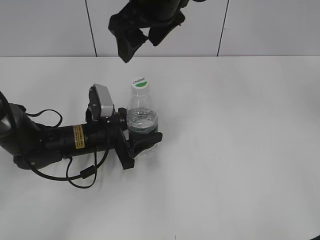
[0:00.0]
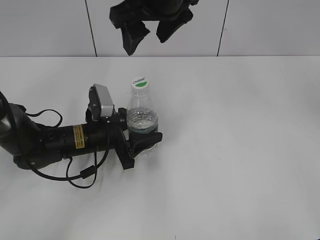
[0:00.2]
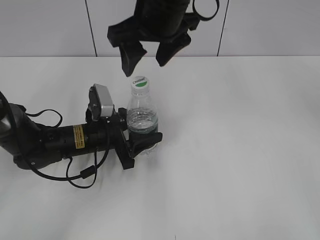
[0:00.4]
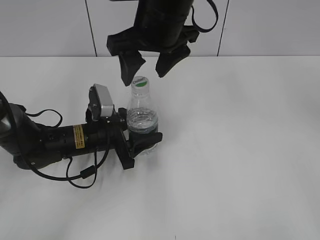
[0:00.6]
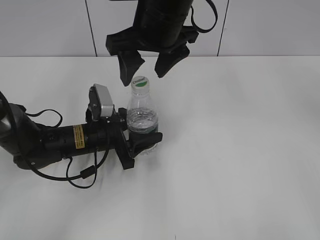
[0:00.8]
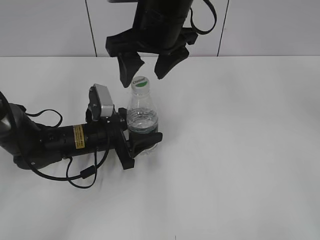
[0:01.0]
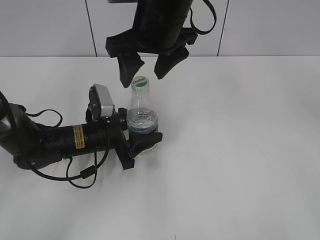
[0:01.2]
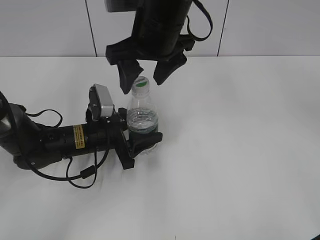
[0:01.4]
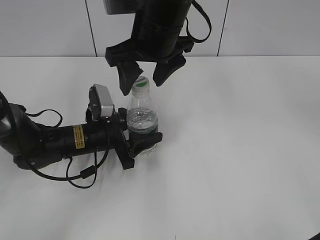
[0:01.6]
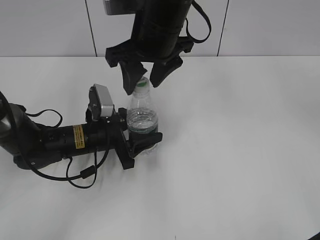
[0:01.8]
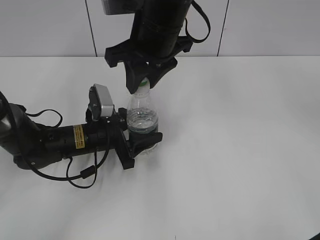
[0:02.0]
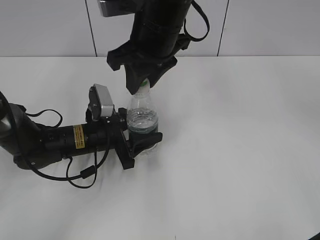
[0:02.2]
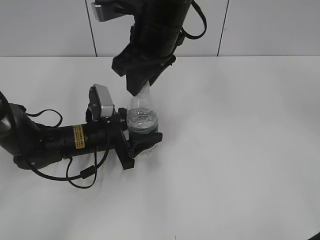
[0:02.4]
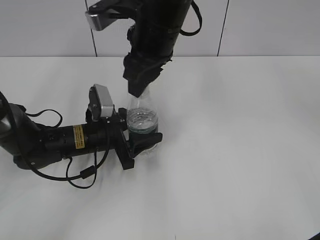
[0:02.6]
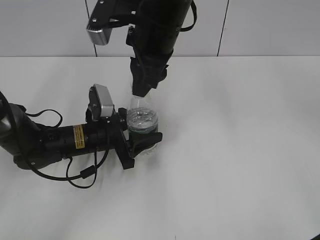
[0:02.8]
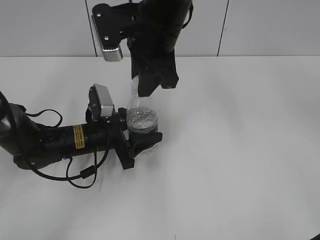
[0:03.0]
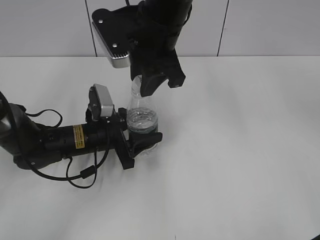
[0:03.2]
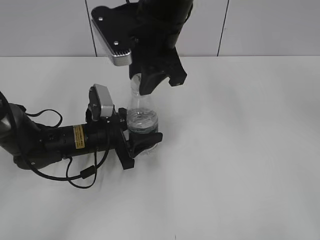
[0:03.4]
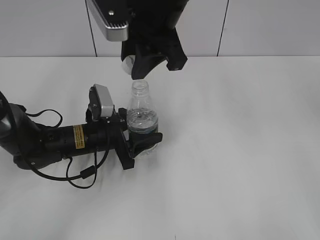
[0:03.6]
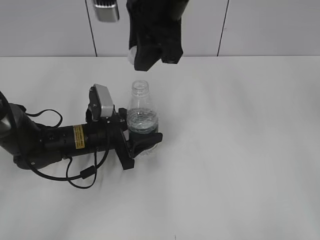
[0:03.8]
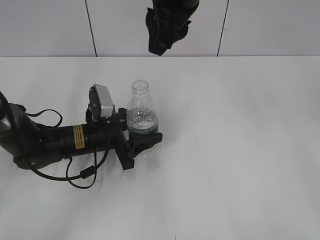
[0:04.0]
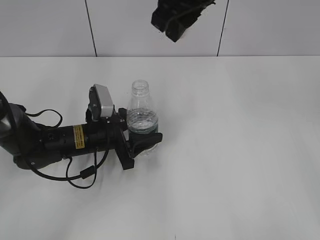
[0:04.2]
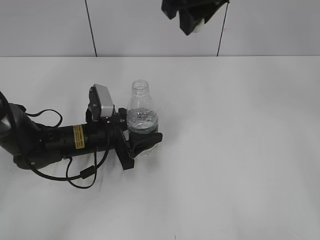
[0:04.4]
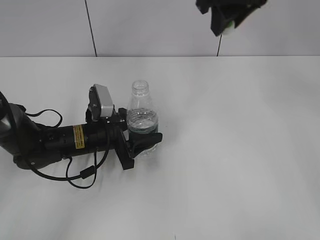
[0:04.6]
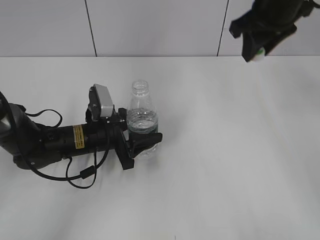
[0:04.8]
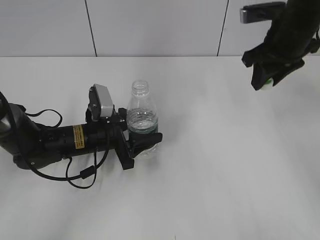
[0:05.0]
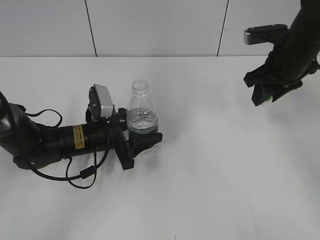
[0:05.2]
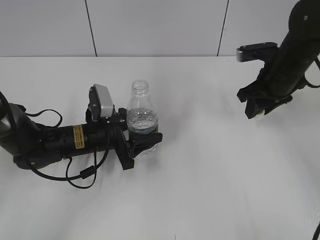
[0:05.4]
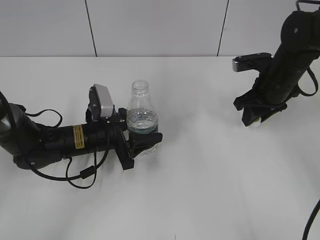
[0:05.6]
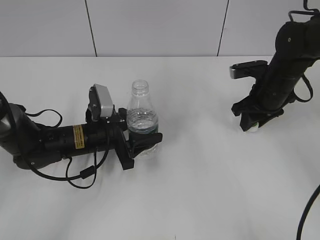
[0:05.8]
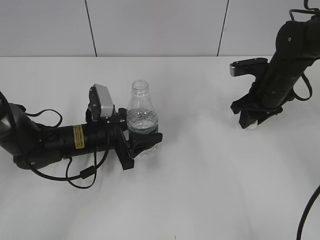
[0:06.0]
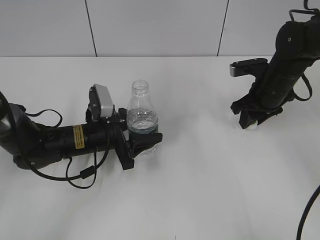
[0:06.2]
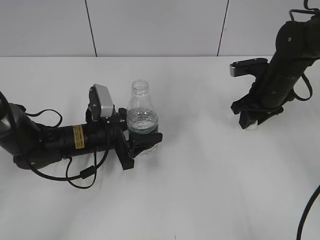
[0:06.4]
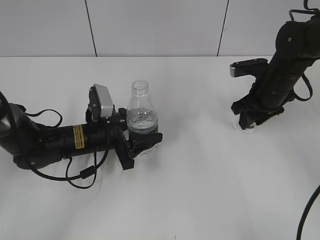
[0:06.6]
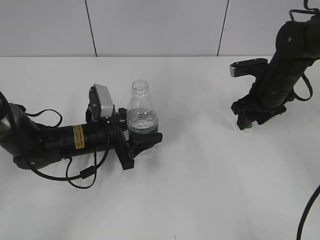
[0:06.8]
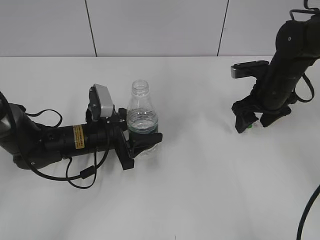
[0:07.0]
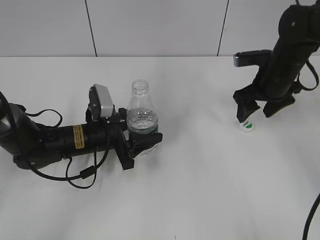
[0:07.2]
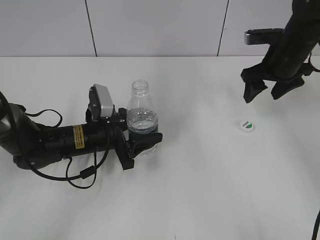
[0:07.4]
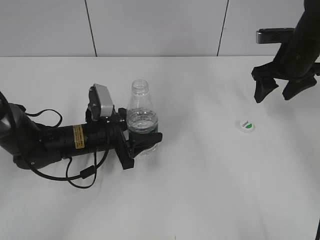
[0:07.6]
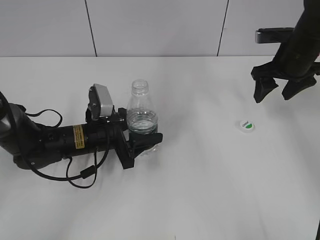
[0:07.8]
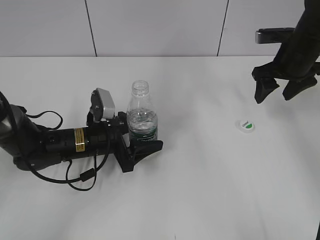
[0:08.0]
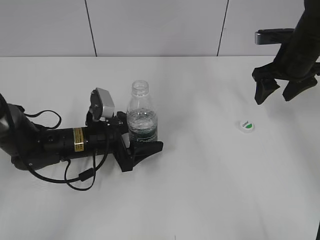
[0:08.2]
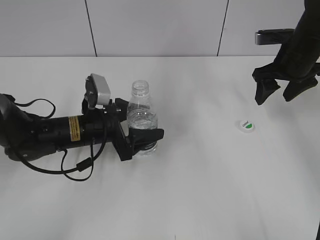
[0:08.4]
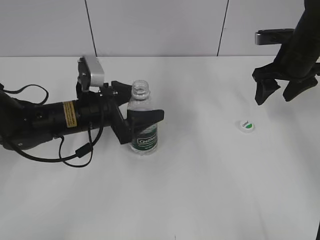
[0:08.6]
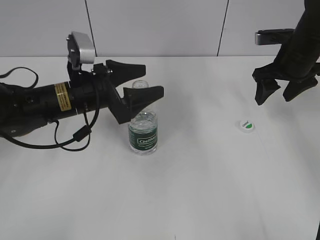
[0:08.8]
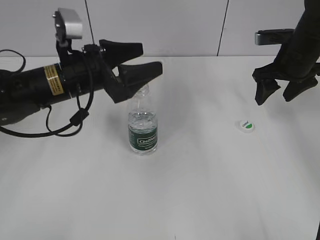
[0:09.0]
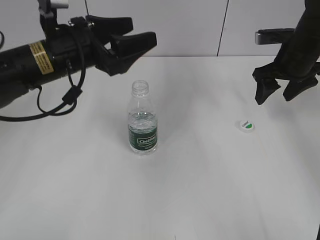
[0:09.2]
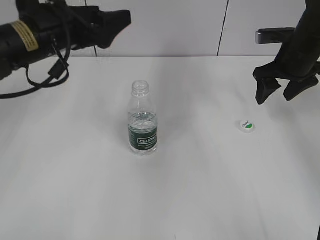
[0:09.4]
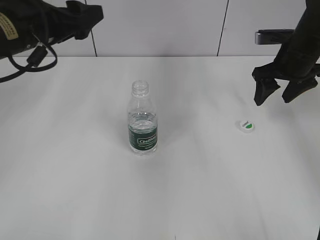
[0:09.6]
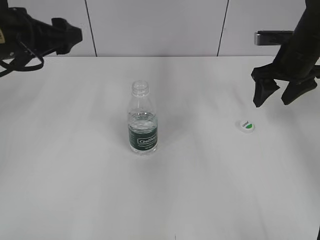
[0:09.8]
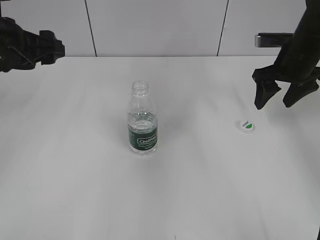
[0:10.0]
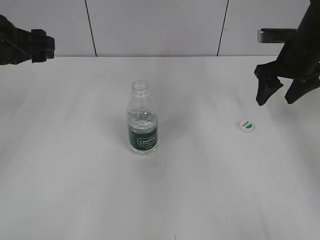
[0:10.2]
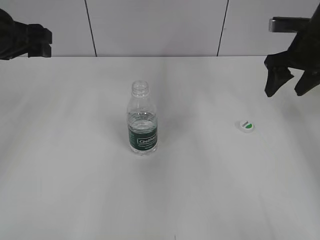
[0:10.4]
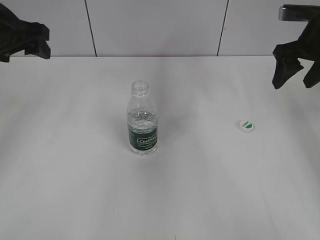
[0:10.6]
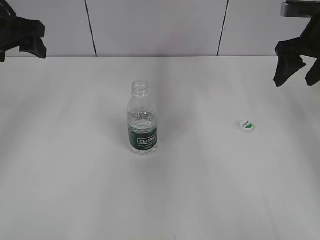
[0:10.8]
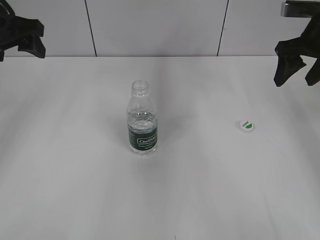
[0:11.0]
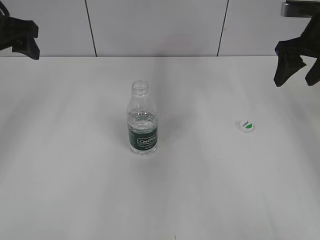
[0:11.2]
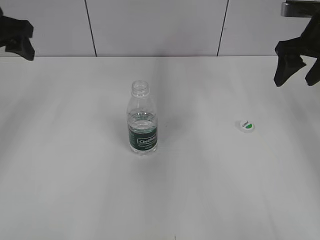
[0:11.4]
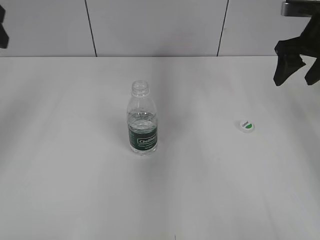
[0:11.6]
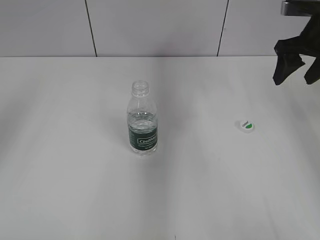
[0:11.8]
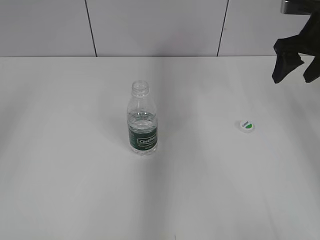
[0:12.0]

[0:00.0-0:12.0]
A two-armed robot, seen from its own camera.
Step, 0:00.0 to 0:03.6: Unscrew the bottle cap with the right gripper while holding the bottle with the left gripper.
Step, 0:03.8 to 0:07.0: Place the bottle cap on the table with the right gripper.
Step, 0:07.2 to 0:08.6: Place the bottle on the table with the left gripper.
0:01.6 to 0:03.0: The right gripper closes up.
0:03.0 to 0:04.4: The right gripper is displaced upward and to the right by about 10 cm.
0:04.4 to 0:06.0: The right gripper shifts approximately 25 cm downward and to the right.
0:06.0 to 0:07.6: The right gripper heads upward, covering about 5 cm, and opens.
0:07.6 to 0:09.0: The left gripper moves upward, roughly 15 cm, and opens up.
0:09.0 to 0:10.4: The left gripper shifts approximately 15 cm to the left and upward.
0:10.4 to 0:12.0: The left gripper is displaced backward and upward by approximately 20 cm.

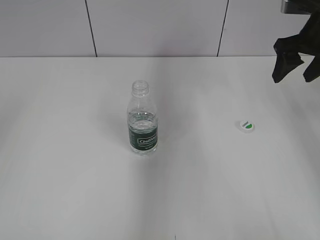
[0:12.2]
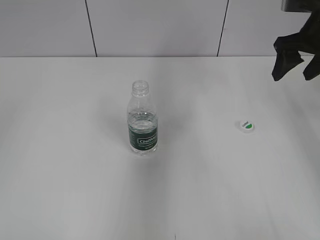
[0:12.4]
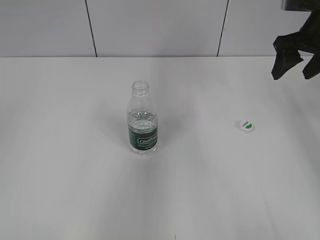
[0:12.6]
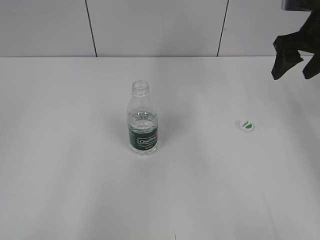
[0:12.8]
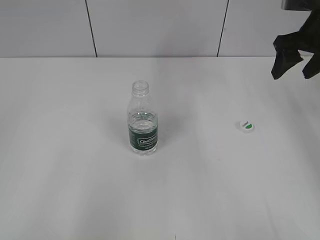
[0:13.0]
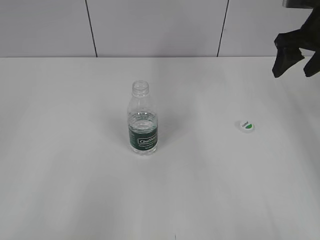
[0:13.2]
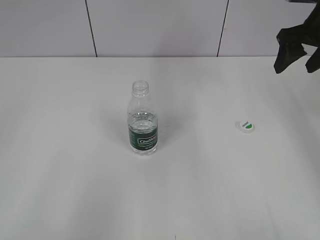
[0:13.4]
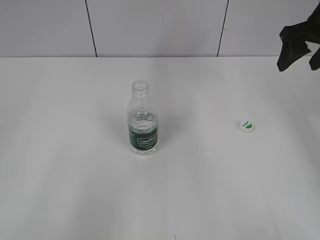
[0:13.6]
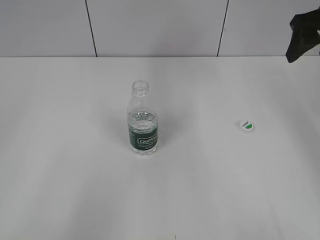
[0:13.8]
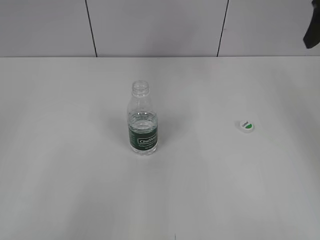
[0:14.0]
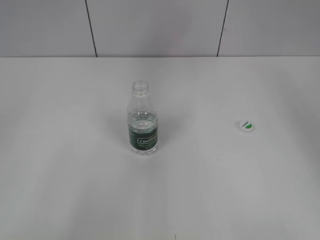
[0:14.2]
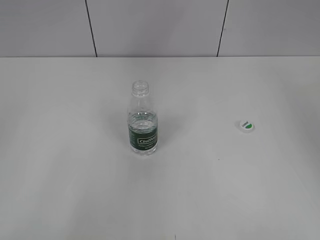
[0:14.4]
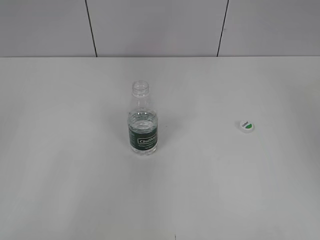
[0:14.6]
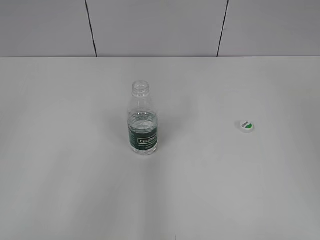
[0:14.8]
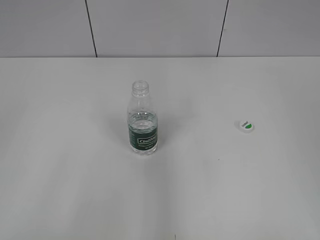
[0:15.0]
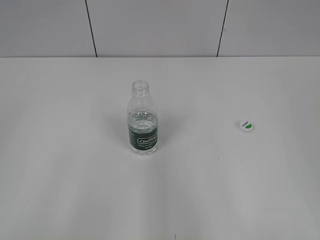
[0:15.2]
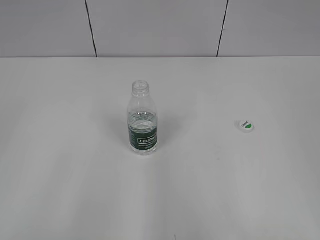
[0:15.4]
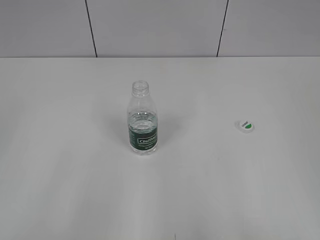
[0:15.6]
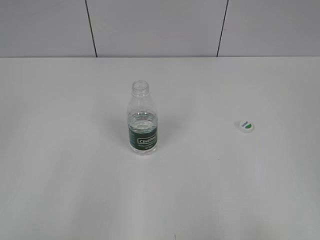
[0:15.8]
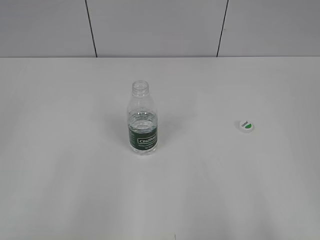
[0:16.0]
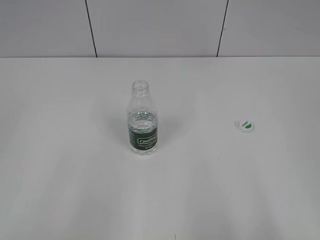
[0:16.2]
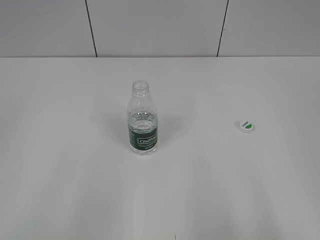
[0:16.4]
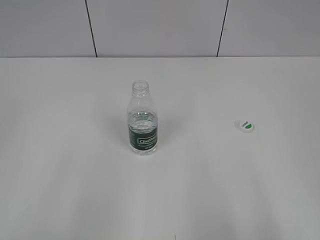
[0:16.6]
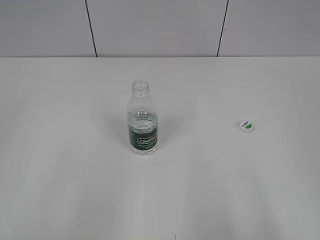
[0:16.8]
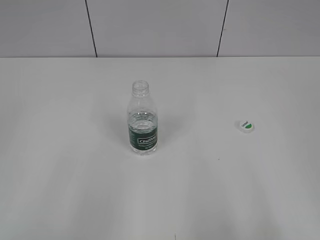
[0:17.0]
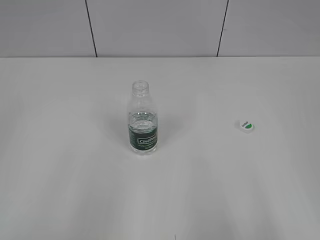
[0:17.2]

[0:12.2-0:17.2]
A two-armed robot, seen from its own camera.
0:12.2 to 0:13.8: The left gripper moves downward and backward, approximately 15 cm.
0:13.8 to 0:15.6: The right gripper moves backward, some 40 cm.

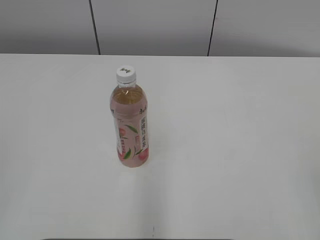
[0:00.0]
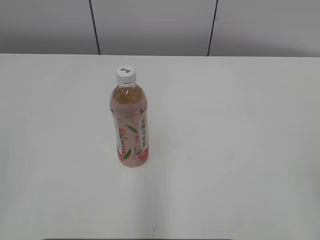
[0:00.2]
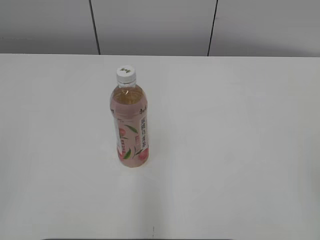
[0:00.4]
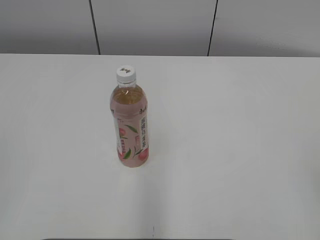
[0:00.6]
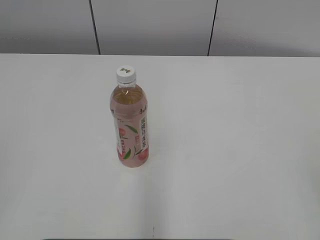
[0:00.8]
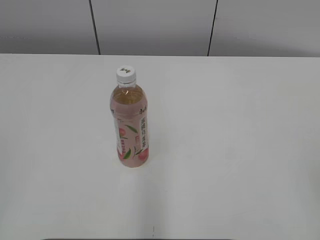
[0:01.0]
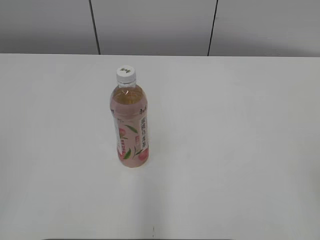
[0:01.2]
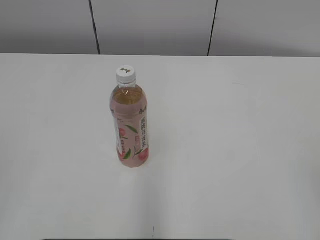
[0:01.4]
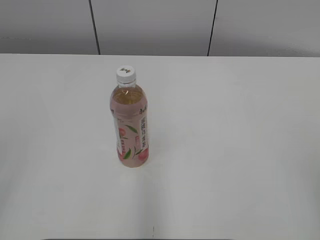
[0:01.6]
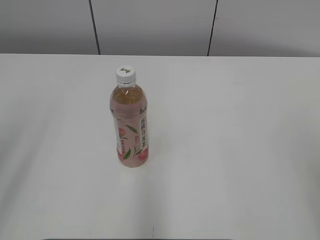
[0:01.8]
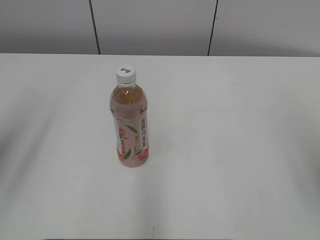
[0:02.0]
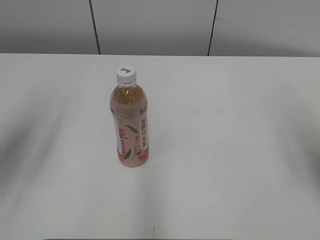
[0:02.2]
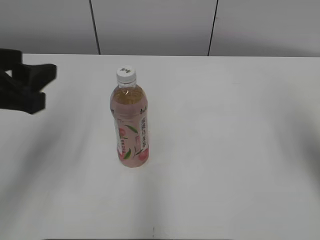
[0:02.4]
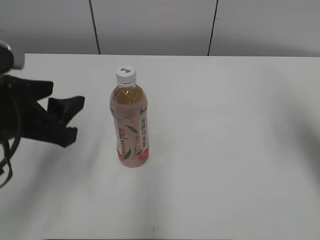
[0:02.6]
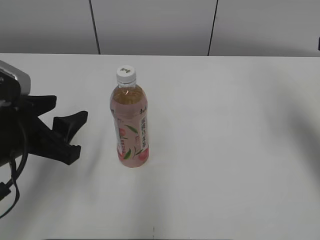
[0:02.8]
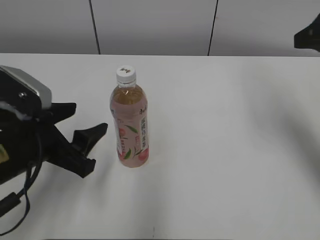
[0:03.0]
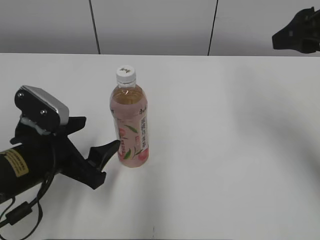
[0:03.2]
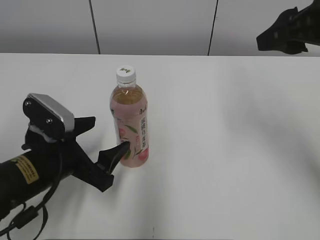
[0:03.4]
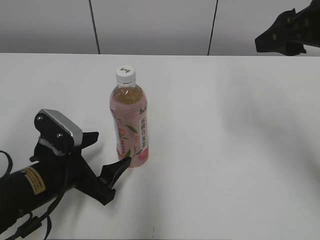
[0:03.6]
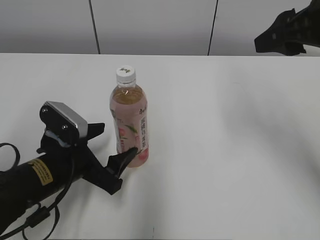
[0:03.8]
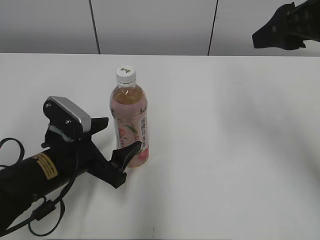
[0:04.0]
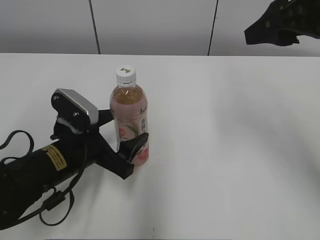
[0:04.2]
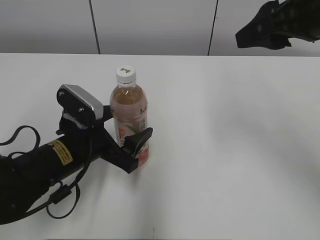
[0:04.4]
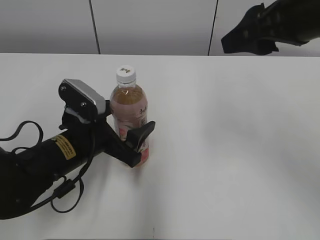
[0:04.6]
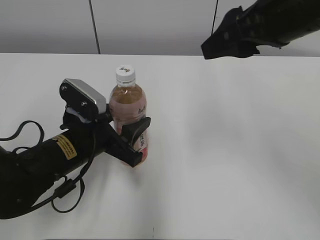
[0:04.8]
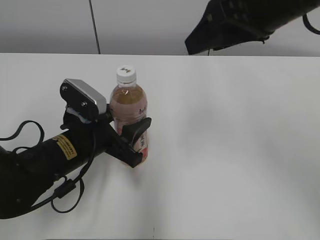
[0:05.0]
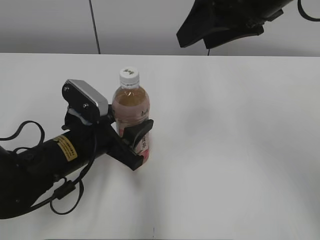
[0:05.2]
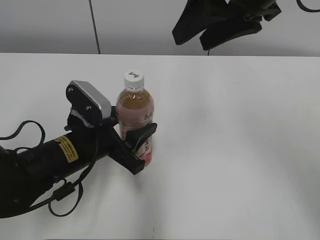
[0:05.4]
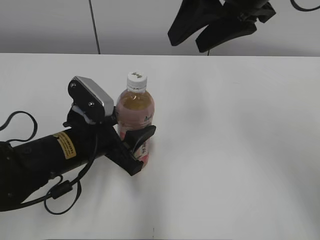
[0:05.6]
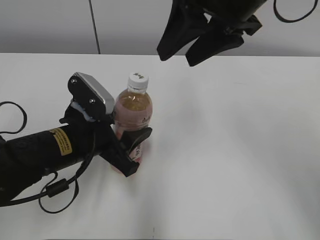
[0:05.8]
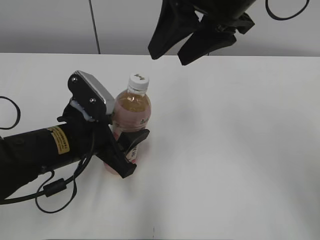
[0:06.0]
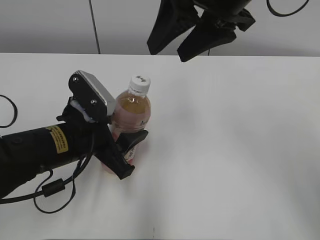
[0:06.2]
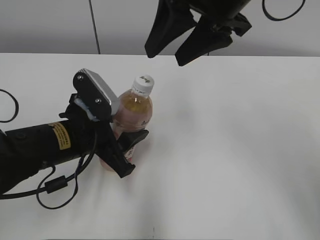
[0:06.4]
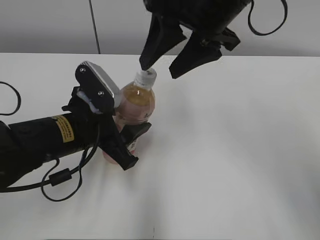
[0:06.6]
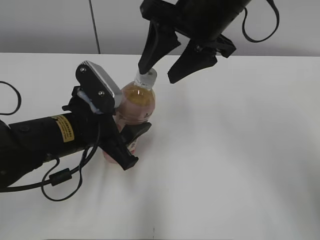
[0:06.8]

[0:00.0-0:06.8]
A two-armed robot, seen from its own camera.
Step, 0:00.0 to 0:05.0: Grab the Peach Oolong Tea with the left hand.
0:01.4 to 0:02.8: The right gripper travels forward by roughly 25 cm. Meanwhile the left gripper heads forward, downward and to the right, covering about 25 cm, and opens.
0:02.8 to 0:04.0: The left gripper heads downward, covering approximately 10 cm, and opens up. The right gripper heads to the left, covering some 10 cm.
0:04.0 to 0:05.4: The left gripper closes its fingers; the right gripper is displaced to the left by about 10 cm.
0:05.4 to 0:06.8: The right gripper moves approximately 5 cm.
